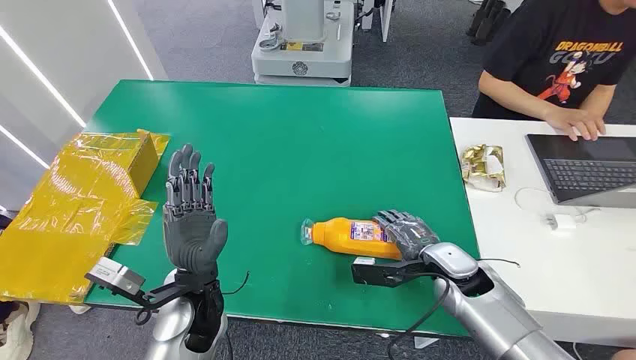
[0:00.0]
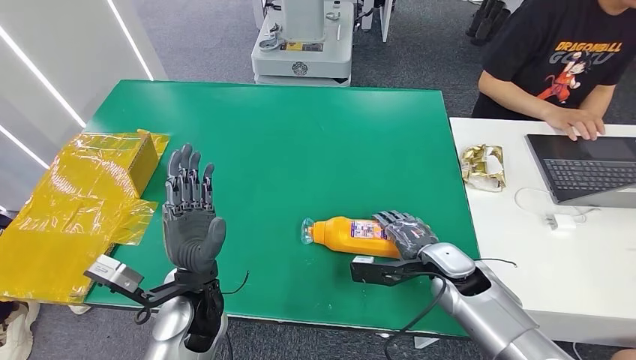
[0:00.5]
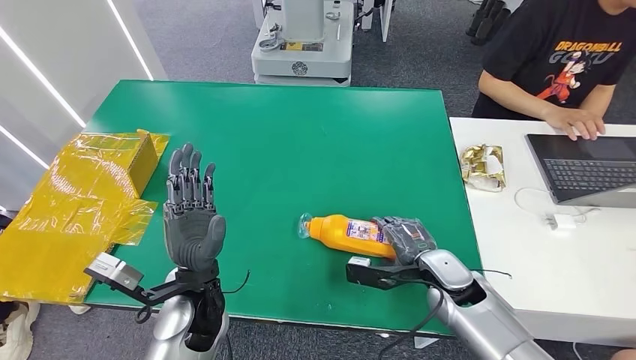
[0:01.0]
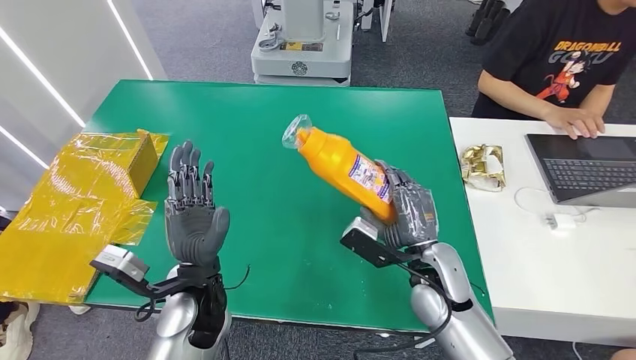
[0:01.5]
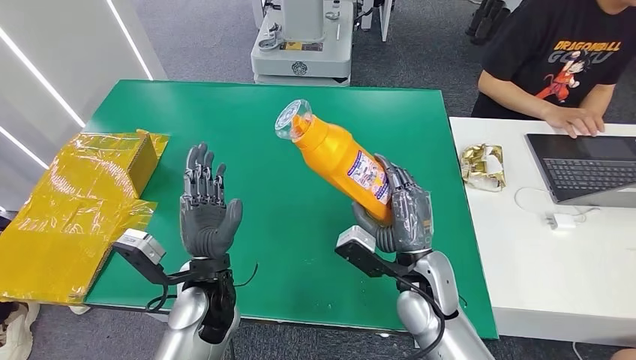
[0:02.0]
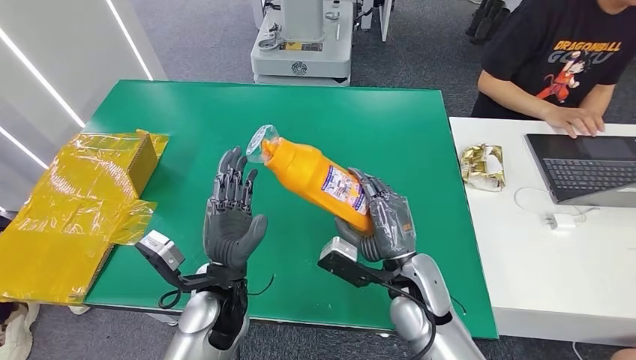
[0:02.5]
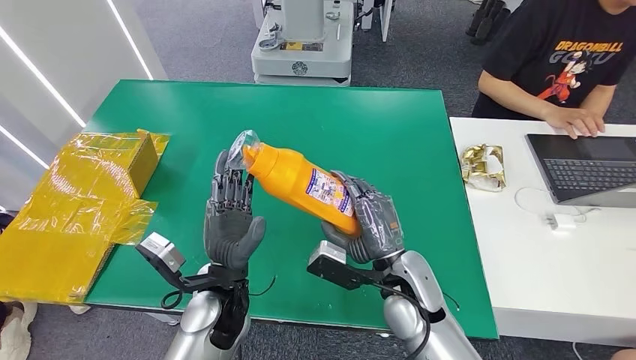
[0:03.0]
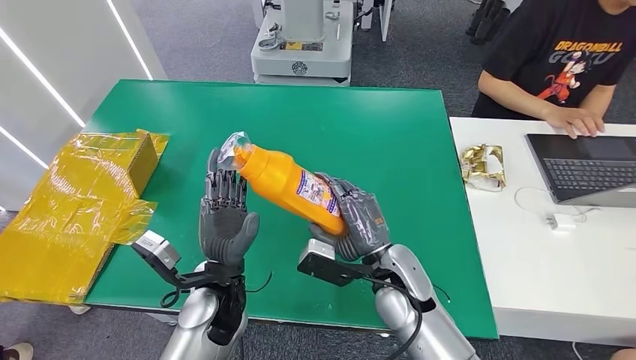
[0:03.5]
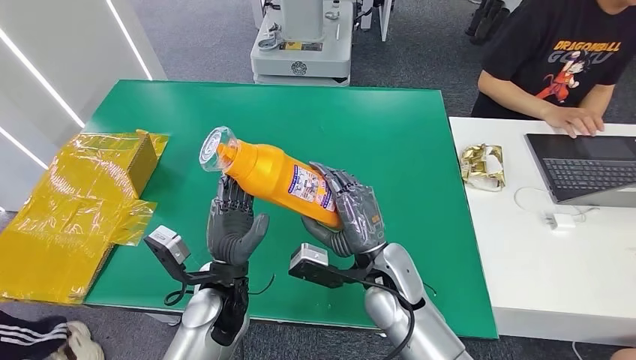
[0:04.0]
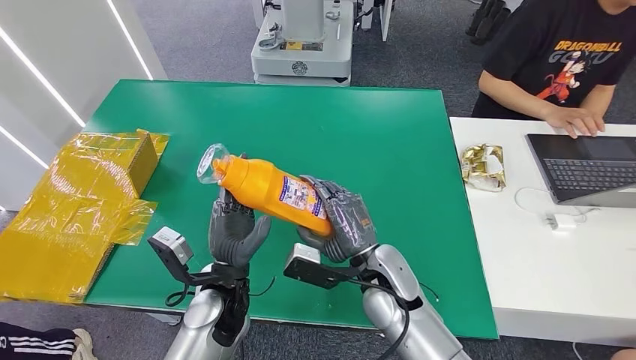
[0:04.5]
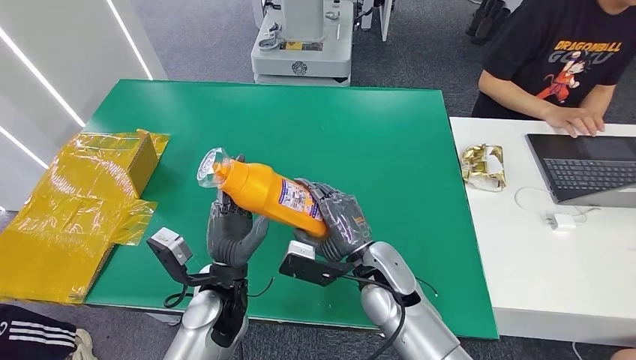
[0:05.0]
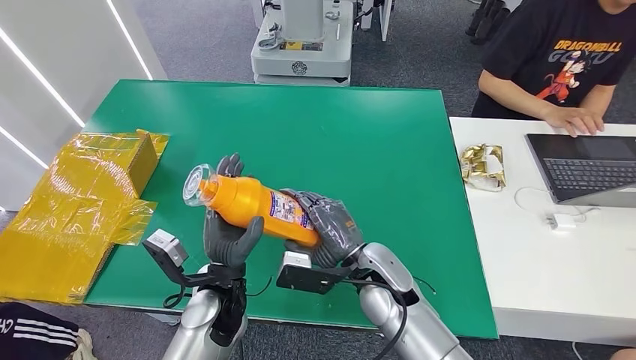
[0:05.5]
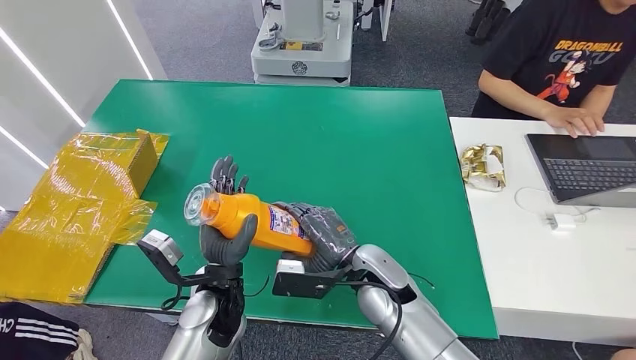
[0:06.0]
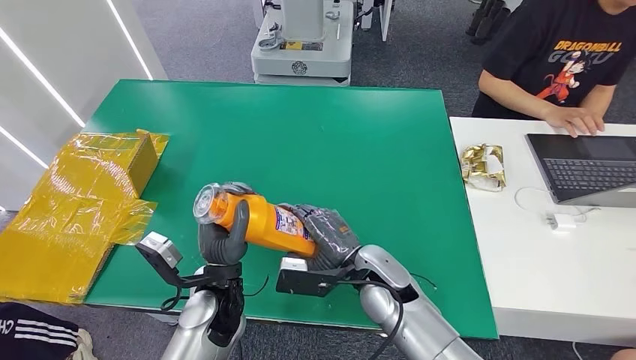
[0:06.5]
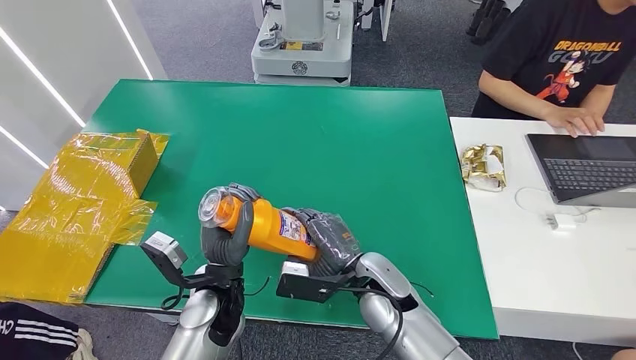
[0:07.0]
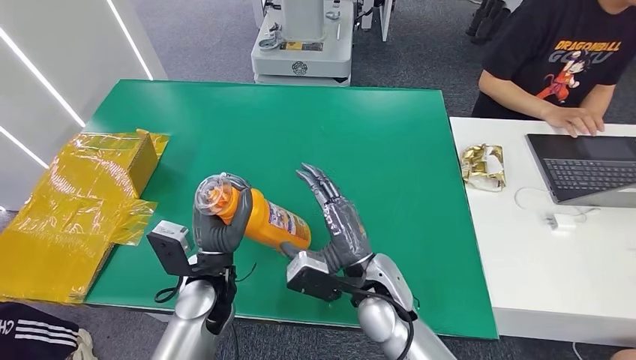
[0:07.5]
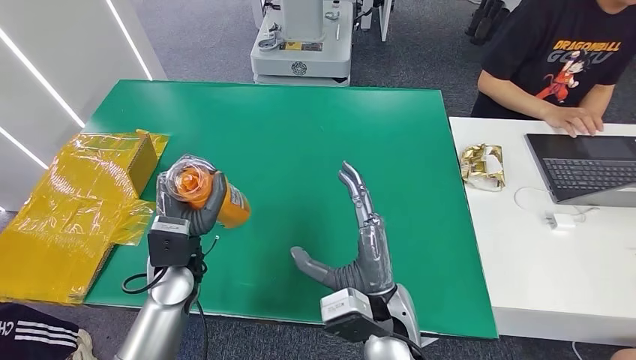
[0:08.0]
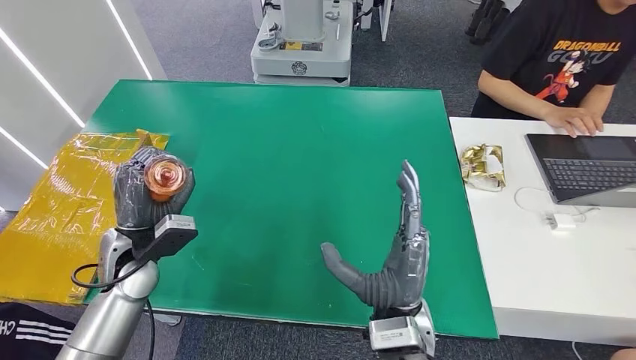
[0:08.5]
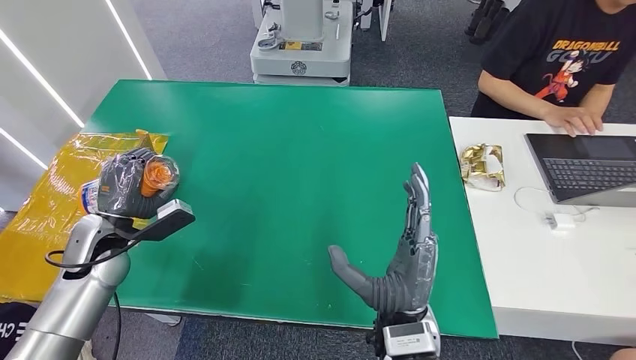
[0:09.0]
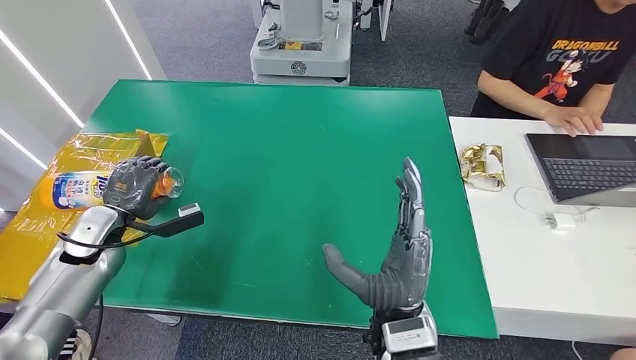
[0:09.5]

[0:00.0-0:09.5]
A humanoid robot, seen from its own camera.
Step, 0:00.0 to 0:04.5: Pick up the bottle from the table.
0:02.0 to 0:04.0: The right hand heads to the left, covering approximately 5 cm.
0:05.5 to 0:07.5: The hands stay close to where they were, moving slightly.
0:07.5 to 0:09.5: The right hand goes about 5 cm backward, while the left hand goes approximately 25 cm to the left.

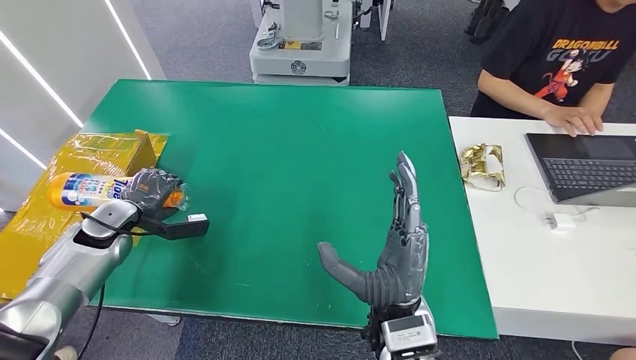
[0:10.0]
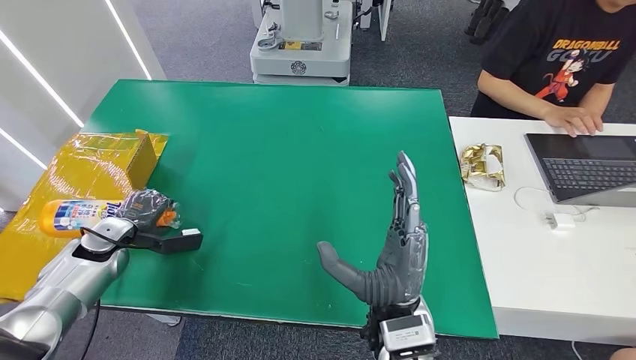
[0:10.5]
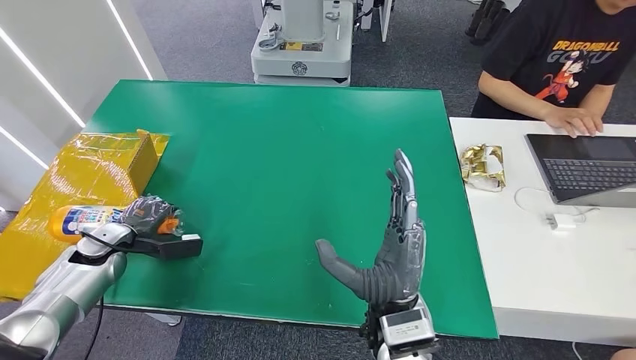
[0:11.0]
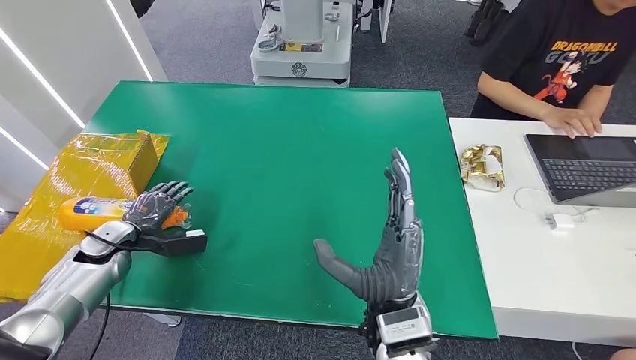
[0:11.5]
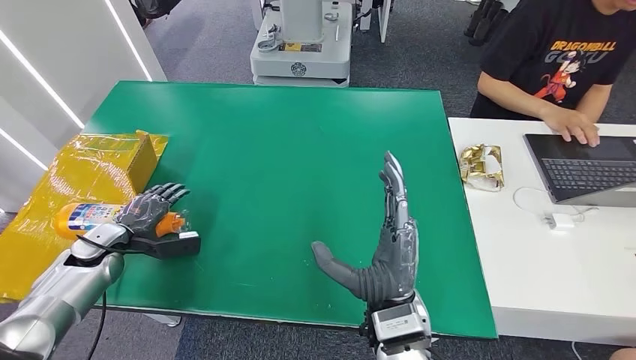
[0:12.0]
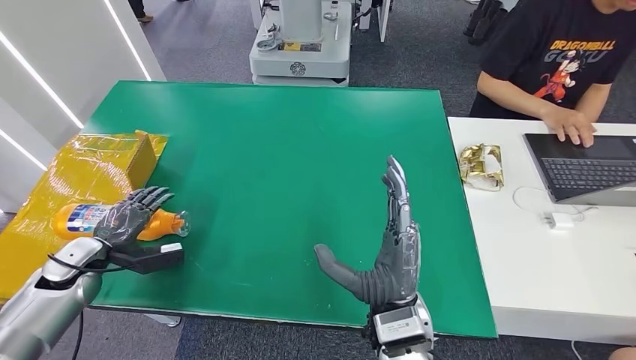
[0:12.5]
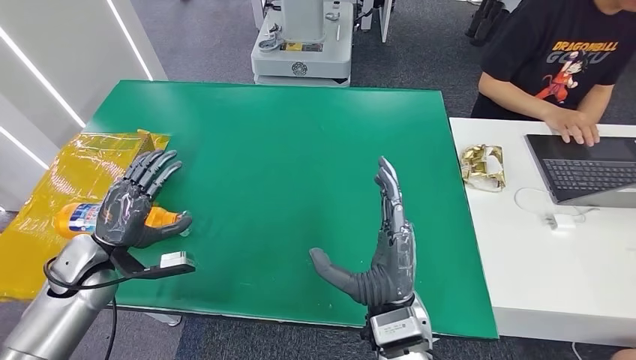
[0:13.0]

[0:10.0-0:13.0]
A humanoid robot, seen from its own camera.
Step, 0:10.0 to 0:13.0: Turn the bottle to the front side.
0:10.0 to 0:11.5: The left hand shifts by roughly 5 cm.
0:11.5 to 0:13.0: The left hand goes roughly 10 cm upward and backward.
